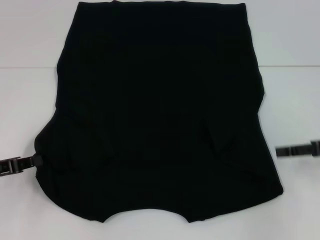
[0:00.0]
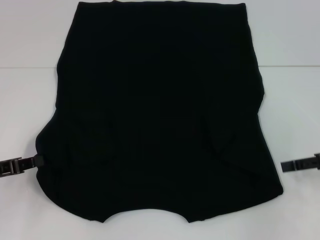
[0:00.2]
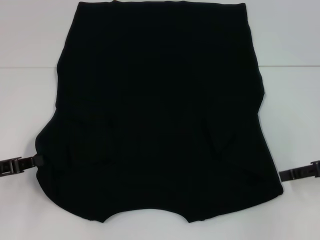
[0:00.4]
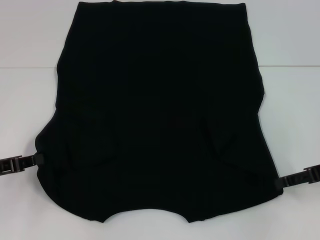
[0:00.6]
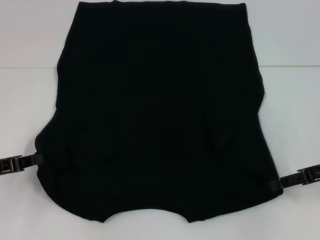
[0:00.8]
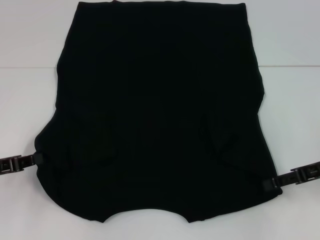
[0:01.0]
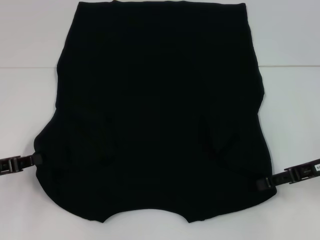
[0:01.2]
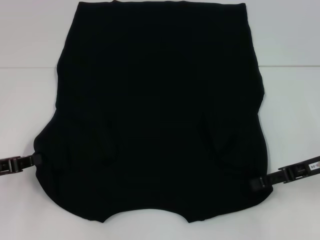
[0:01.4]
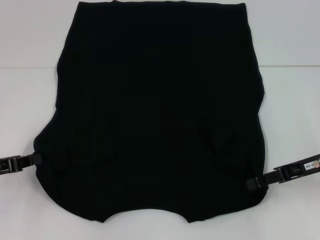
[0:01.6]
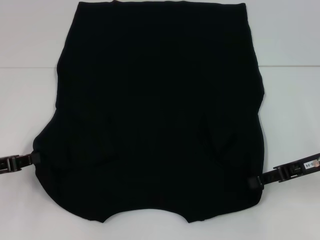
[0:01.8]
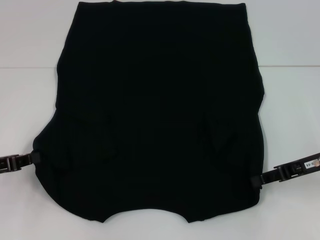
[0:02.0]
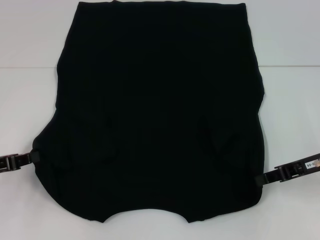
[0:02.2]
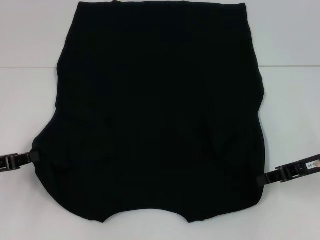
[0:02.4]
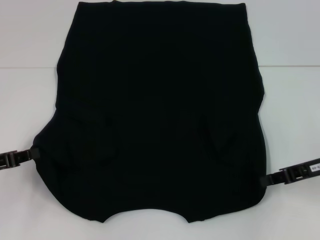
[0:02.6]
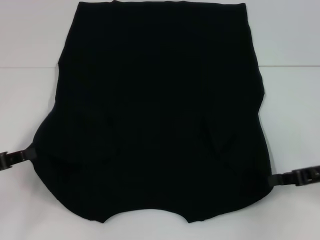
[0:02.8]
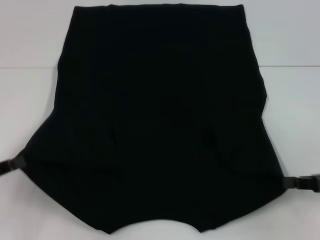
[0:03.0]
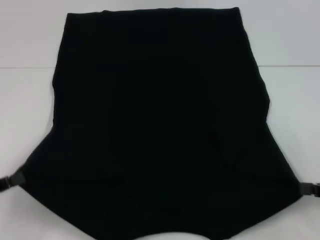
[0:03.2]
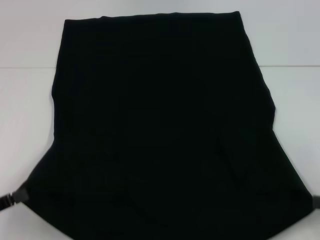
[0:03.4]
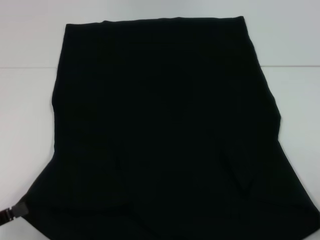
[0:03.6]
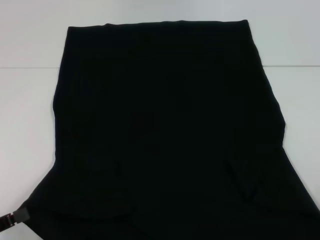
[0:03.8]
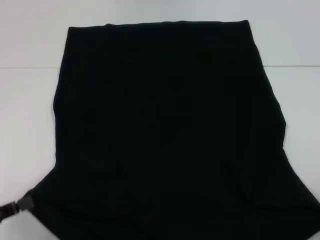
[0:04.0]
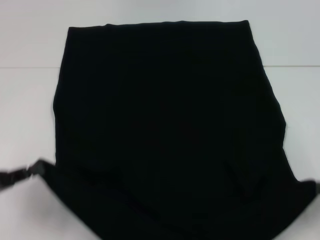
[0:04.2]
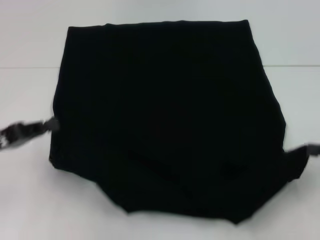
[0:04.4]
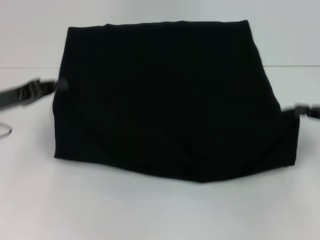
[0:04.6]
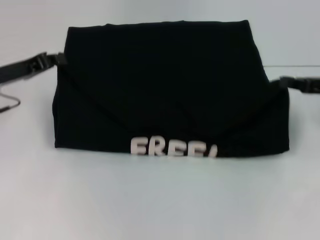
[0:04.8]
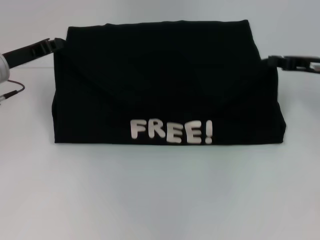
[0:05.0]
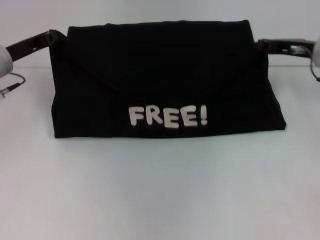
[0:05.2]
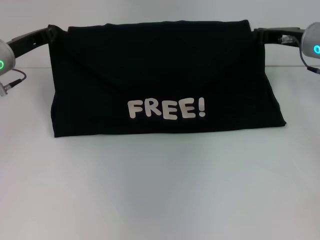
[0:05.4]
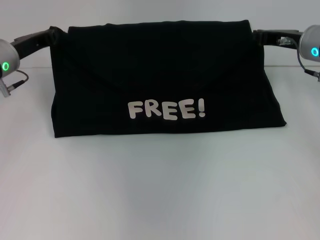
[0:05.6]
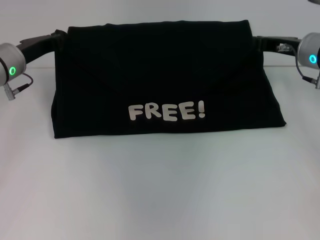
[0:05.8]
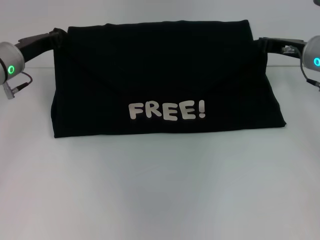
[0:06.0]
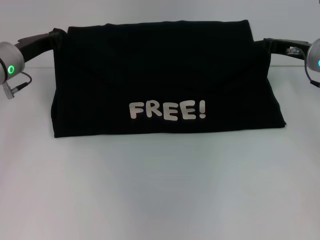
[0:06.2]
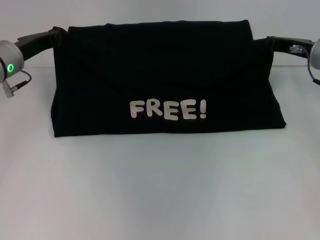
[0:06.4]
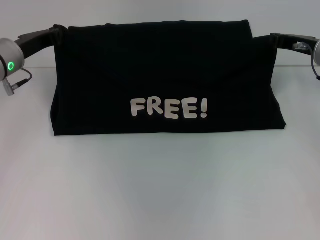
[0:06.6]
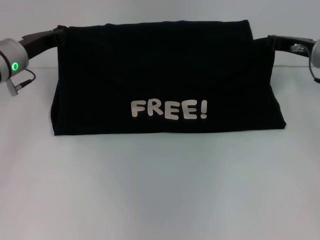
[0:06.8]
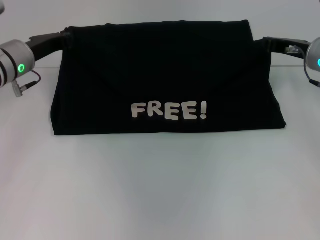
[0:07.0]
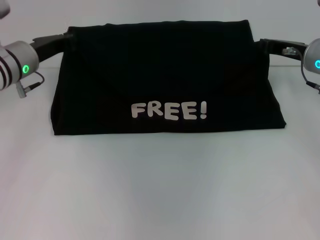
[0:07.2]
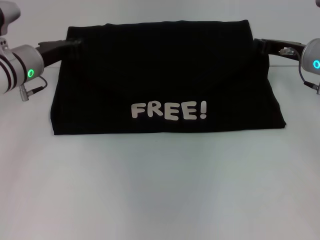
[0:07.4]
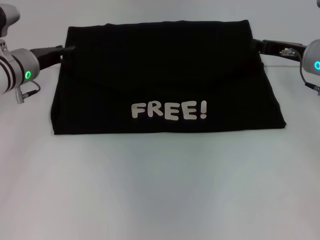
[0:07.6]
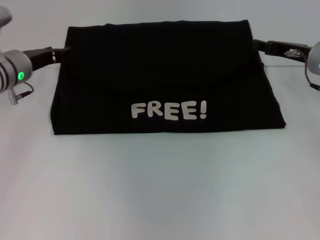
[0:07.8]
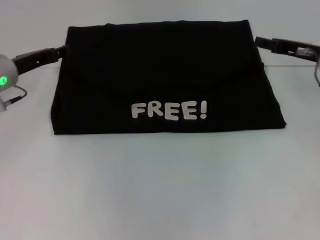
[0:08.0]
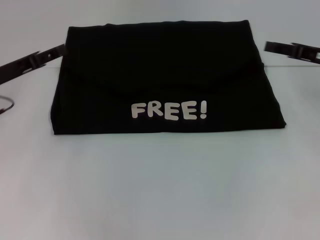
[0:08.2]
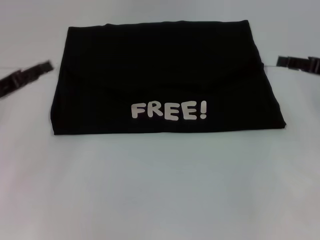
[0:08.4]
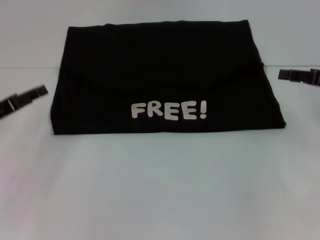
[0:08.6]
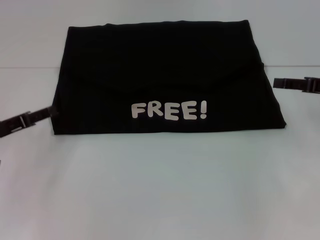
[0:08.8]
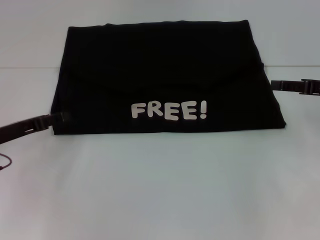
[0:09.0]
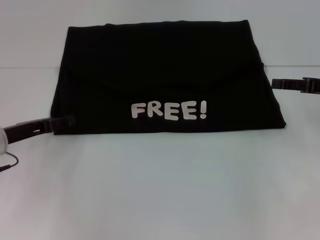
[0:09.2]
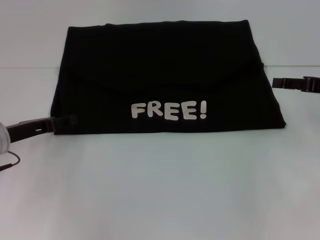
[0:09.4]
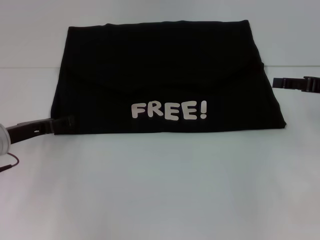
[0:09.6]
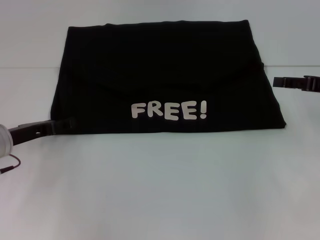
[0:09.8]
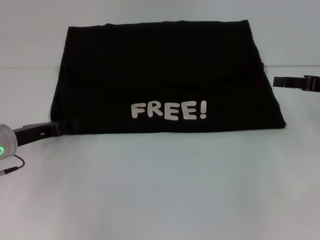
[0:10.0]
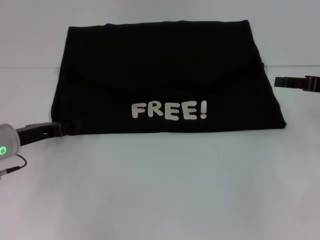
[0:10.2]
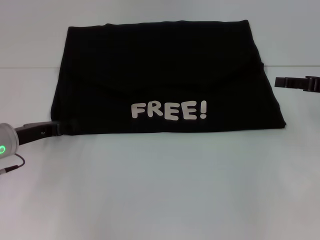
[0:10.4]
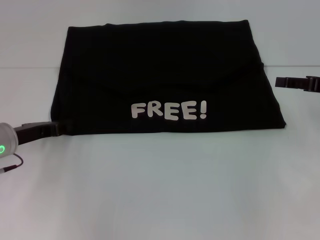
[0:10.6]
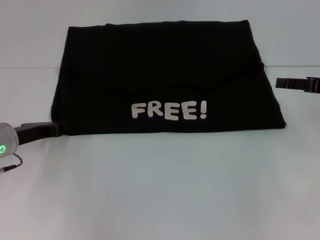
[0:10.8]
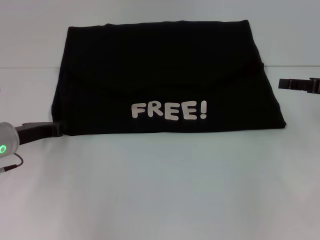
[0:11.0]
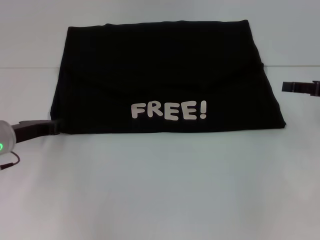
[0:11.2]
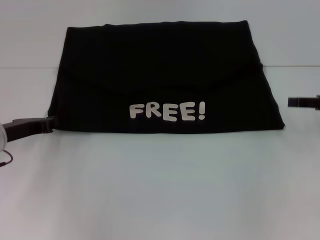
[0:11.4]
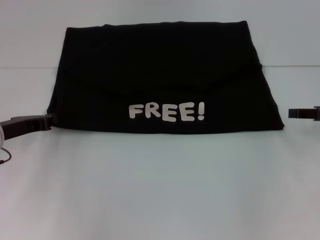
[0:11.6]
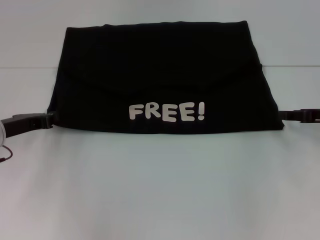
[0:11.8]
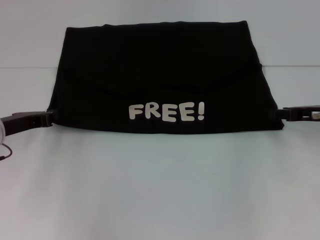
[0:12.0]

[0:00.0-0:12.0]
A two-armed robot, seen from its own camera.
Step, 0.0 to 2.6 s: Grab the bottom right corner with your right hand.
Step, 2.8 to 7.6 s: Fold the clothes with your left hand.
Step, 2.8 to 7.6 s: Fold the clothes with your right hand.
0.0 to 1.6 s: The right gripper shifts some 5 cm to the left.
1.6 to 3.0 s: The right gripper heads to the right and backward, covering some 10 cm, and closes its fingers. Meanwhile the left gripper is displaced backward by about 5 cm.
3.0 to 4.4 s: The right gripper moves some 10 cm backward and comes back. The left gripper moves forward, about 5 cm.
4.4 to 6.0 s: The left gripper shifts some 15 cm forward; the right gripper heads forward and to the left, covering about 20 cm.
6.0 to 7.6 s: There are only small adjustments of the grippers.
7.6 to 9.0 s: The left gripper travels backward and to the left by about 15 cm, and opens up; the right gripper goes roughly 10 cm to the right and backward, and opens its fingers.
9.0 to 10.4 s: The grippers make only small movements.
10.4 to 12.0 s: The left gripper closes its fingers; the right gripper ends up about 5 cm from where it was.

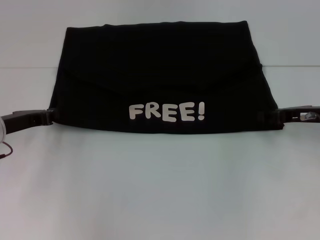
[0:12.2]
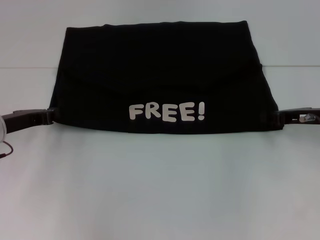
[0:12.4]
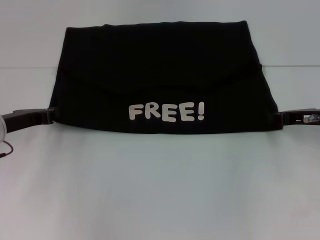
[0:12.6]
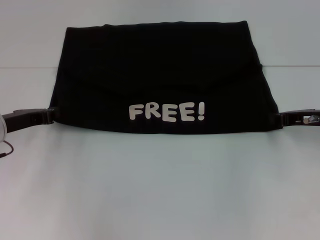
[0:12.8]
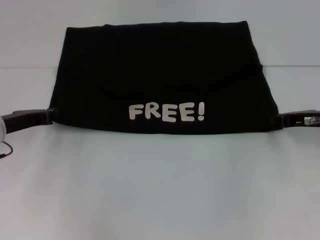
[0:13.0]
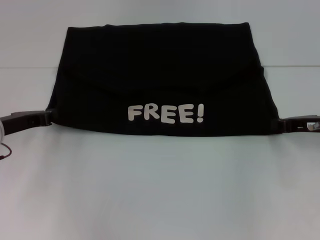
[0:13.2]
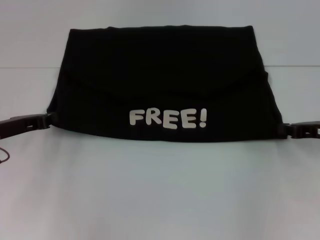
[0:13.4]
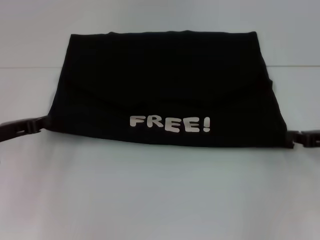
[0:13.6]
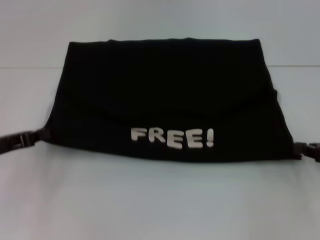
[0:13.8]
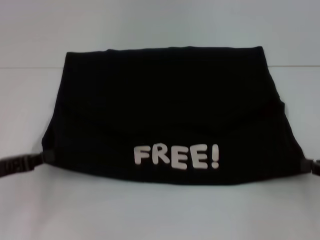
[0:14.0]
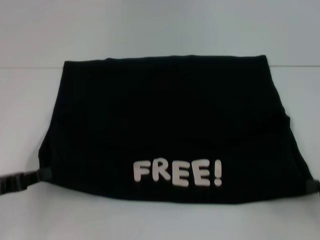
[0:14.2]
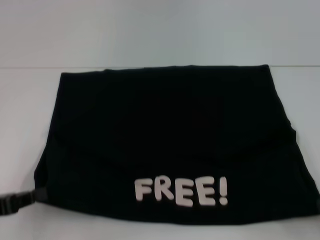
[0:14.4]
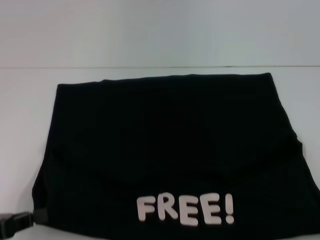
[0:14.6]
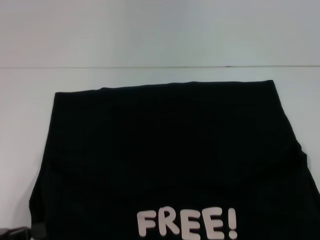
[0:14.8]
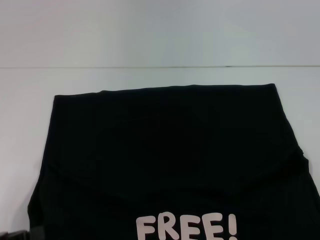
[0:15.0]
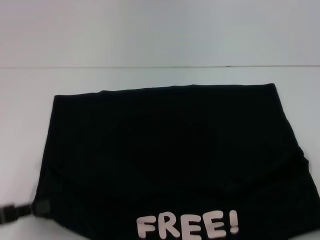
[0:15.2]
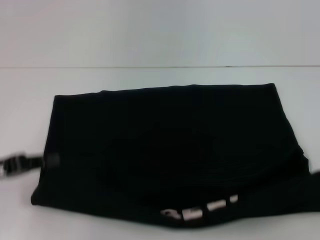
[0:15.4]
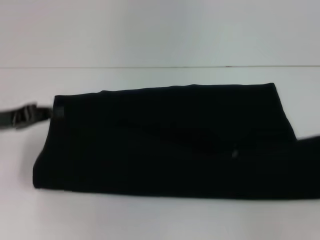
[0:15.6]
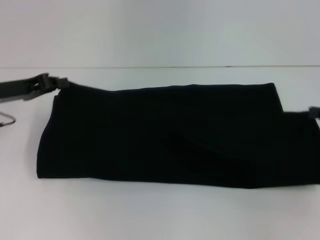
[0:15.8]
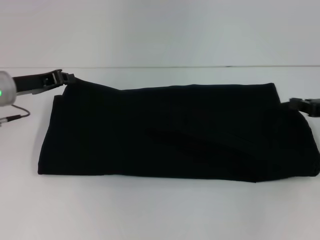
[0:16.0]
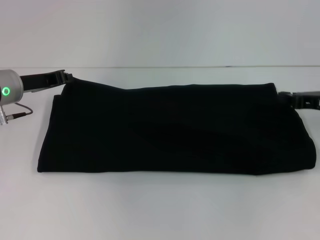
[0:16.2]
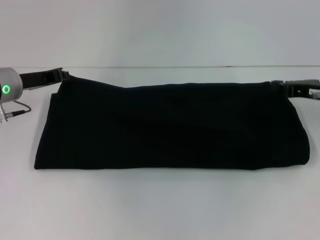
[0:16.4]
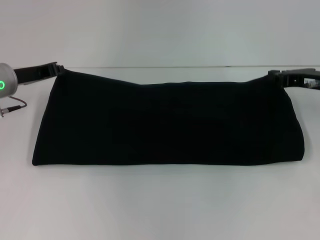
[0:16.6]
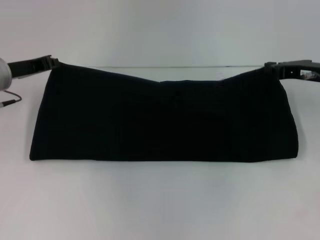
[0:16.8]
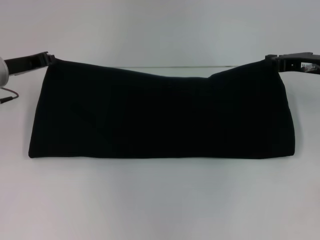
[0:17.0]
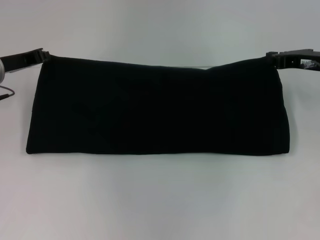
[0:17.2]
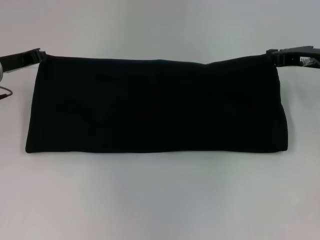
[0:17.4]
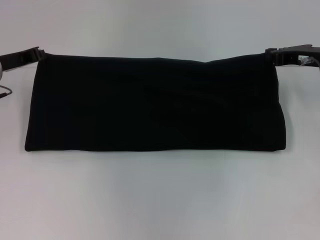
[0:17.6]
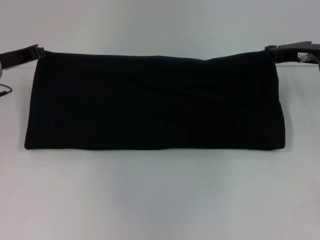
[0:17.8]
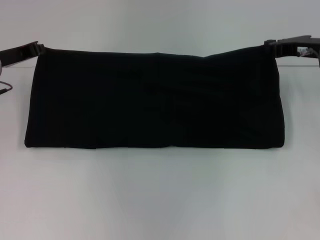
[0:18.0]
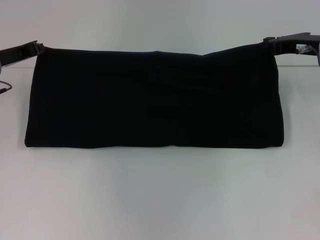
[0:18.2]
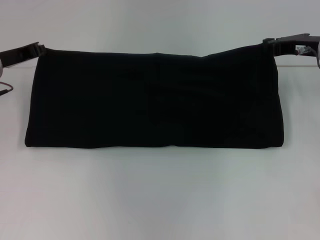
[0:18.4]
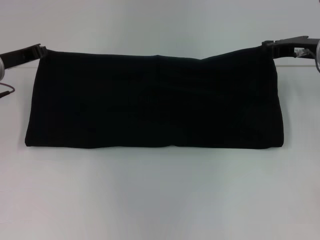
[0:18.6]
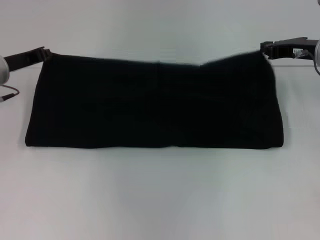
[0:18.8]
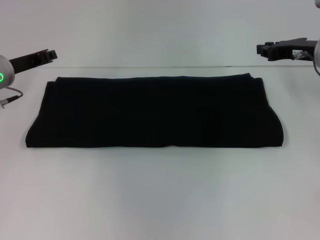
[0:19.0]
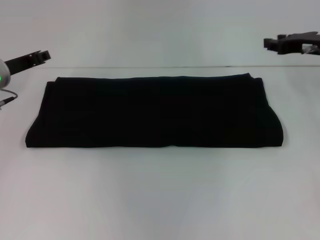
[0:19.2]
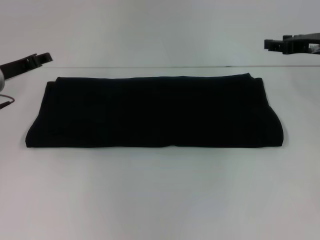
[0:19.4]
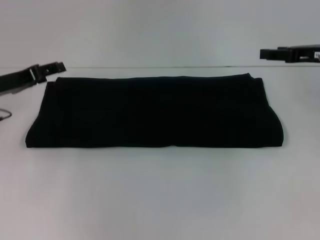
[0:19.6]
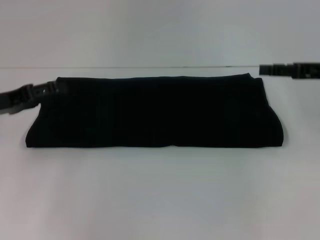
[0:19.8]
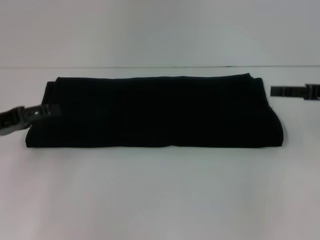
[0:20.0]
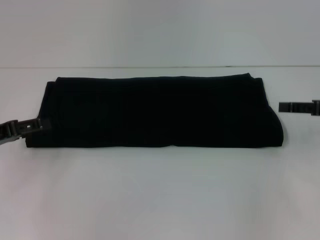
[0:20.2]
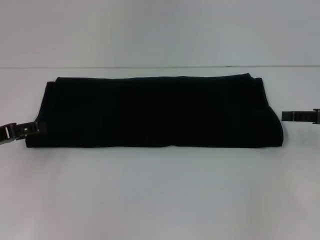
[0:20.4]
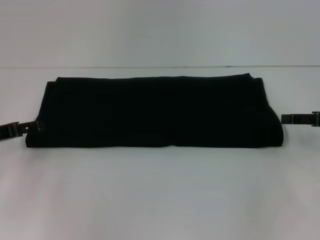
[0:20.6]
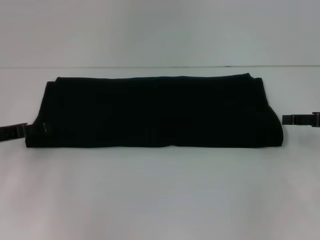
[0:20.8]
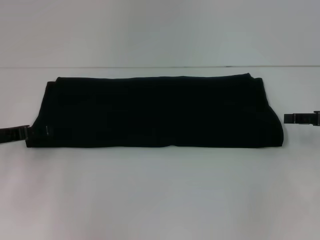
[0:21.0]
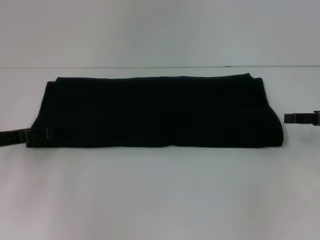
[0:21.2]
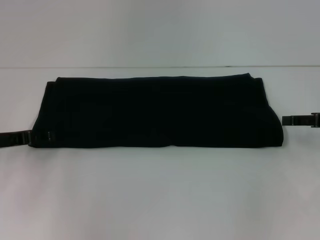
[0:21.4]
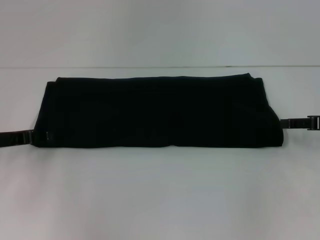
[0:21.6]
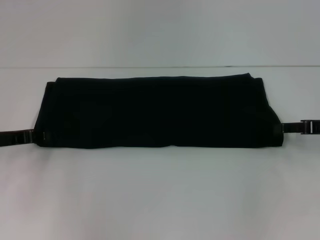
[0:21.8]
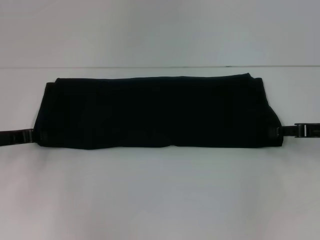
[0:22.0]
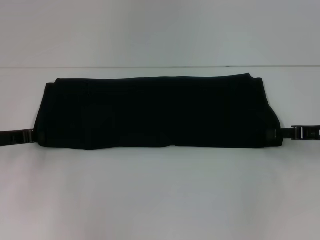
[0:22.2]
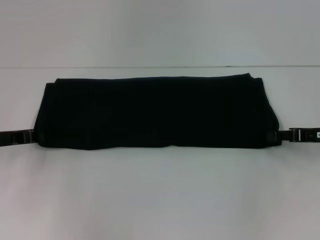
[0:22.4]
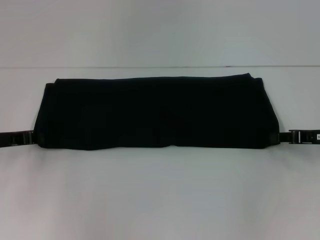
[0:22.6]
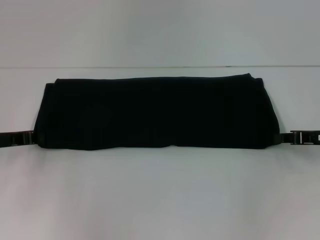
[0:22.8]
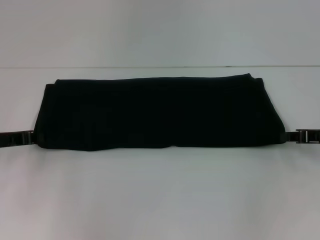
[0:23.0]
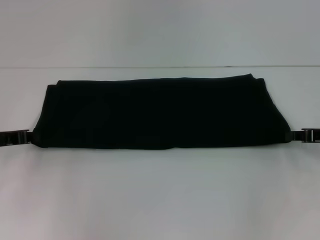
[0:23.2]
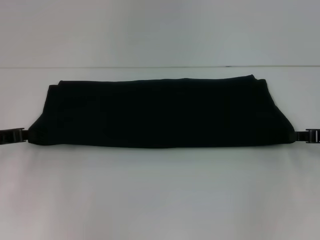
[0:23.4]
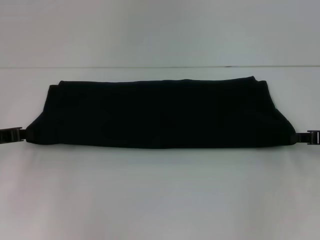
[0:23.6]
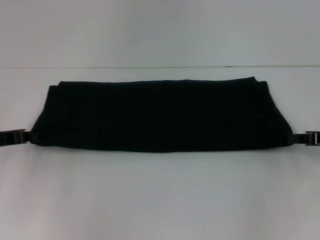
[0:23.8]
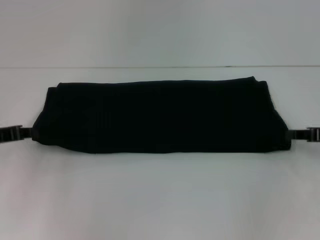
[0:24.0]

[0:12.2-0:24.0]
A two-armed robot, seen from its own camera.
Step, 12.2 to 14.6 s: Pull the clothes with your left hand.
Step, 12.2 to 14.6 s: Pull the clothes with your right hand.
Step, 14.8 to 19.0 s: Fold the clothes with your right hand.
12.2 to 13.6 s: The right gripper travels backward by roughly 5 cm, and closes up.
13.6 to 15.2 s: The right gripper travels backward and to the right by about 15 cm; the left gripper is displaced backward by roughly 15 cm.
15.2 to 16.6 s: The right gripper travels forward and to the left by about 25 cm. The left gripper is displaced forward by roughly 25 cm.
16.6 to 18.2 s: The right gripper ends up approximately 5 cm from where it was.
18.2 to 19.6 s: The left gripper opens, while the right gripper opens up.
19.6 to 21.0 s: The right gripper moves backward and downward, some 10 cm. The left gripper moves approximately 5 cm.
21.0 to 22.6 s: The left gripper closes up.
22.6 to 24.0 s: The right gripper closes its fingers.
